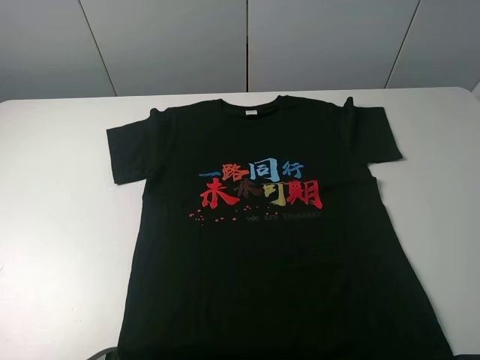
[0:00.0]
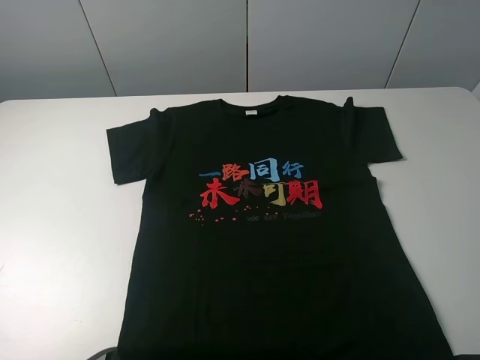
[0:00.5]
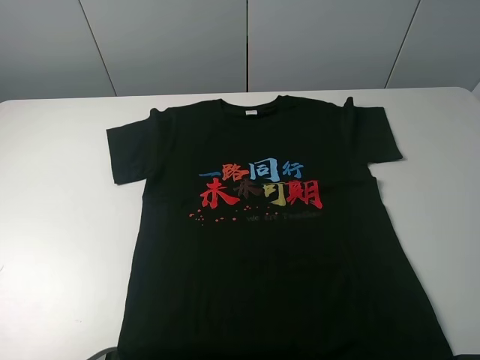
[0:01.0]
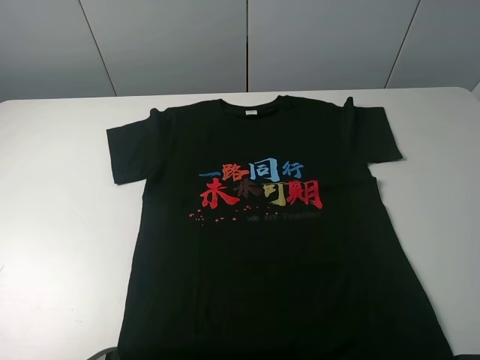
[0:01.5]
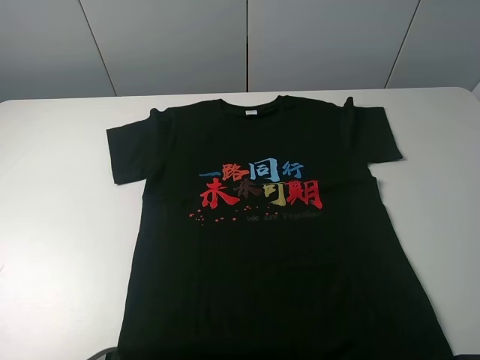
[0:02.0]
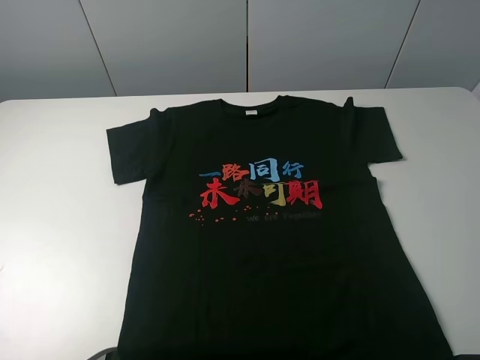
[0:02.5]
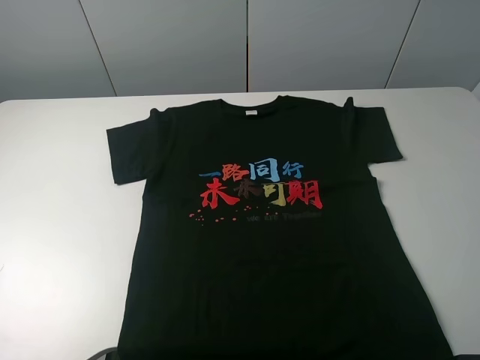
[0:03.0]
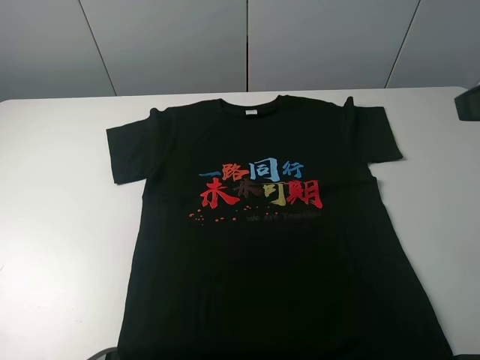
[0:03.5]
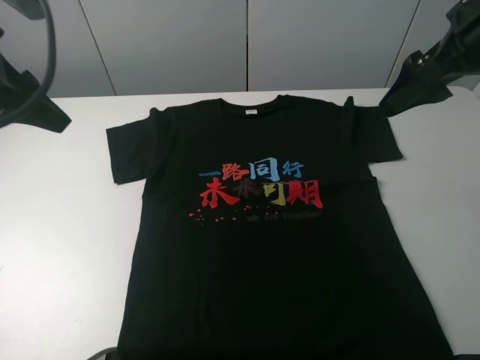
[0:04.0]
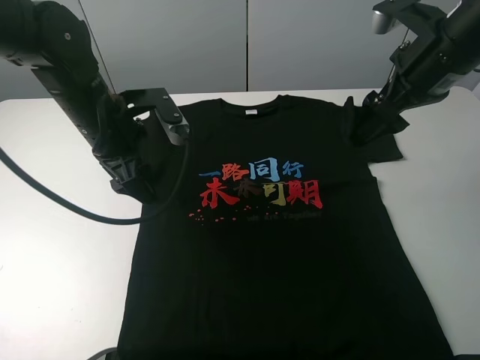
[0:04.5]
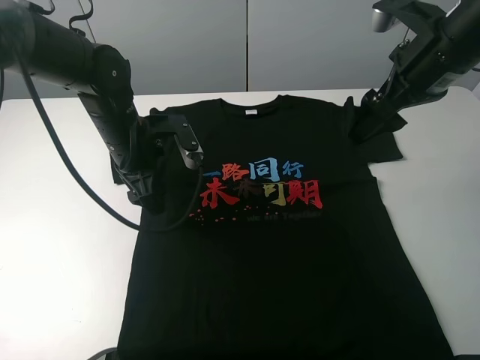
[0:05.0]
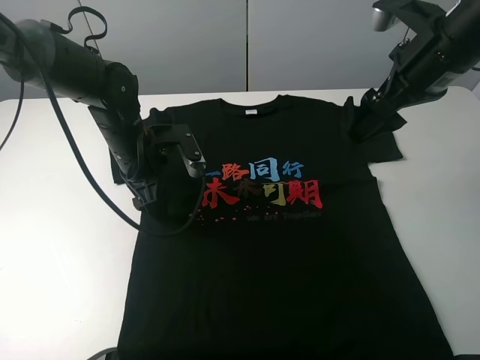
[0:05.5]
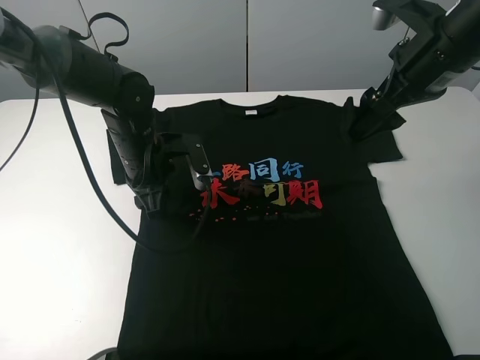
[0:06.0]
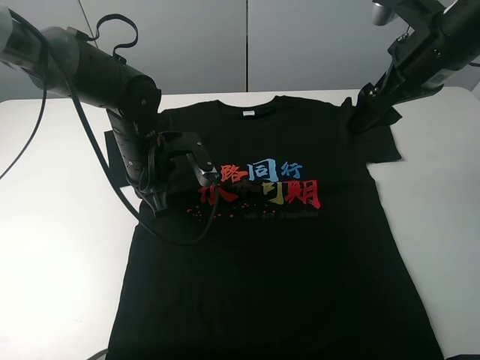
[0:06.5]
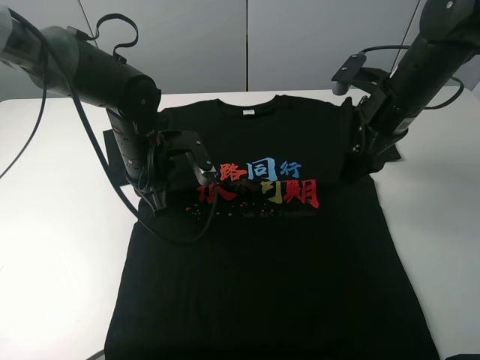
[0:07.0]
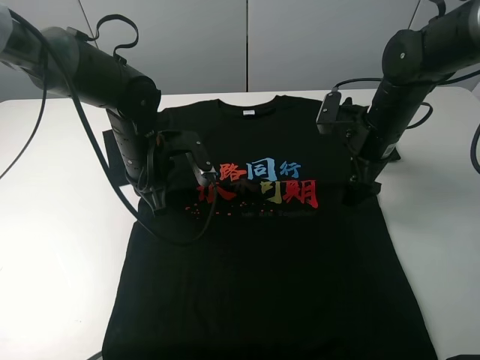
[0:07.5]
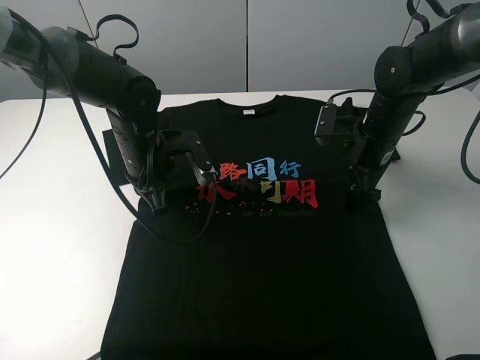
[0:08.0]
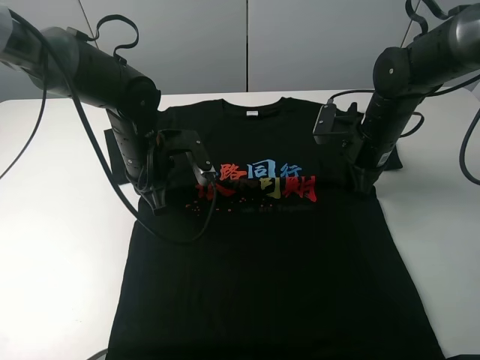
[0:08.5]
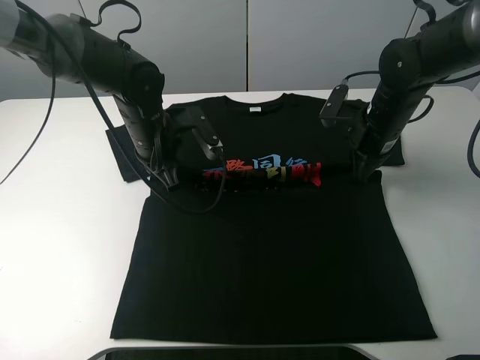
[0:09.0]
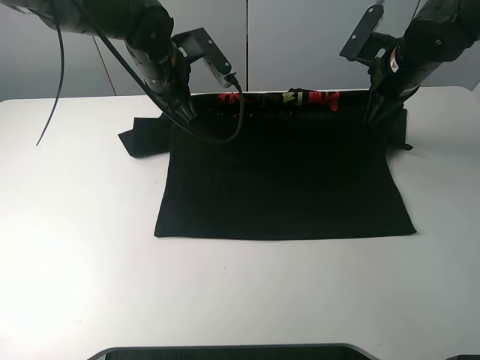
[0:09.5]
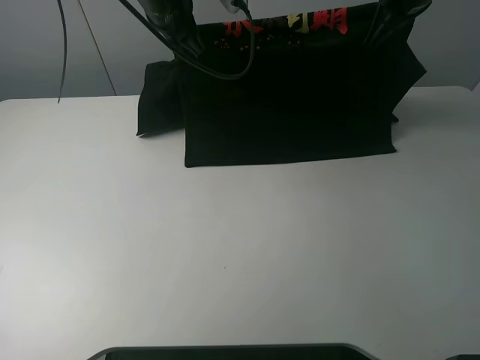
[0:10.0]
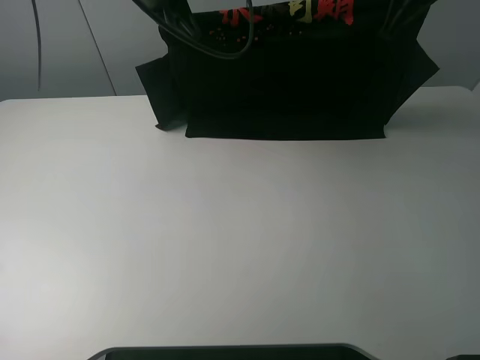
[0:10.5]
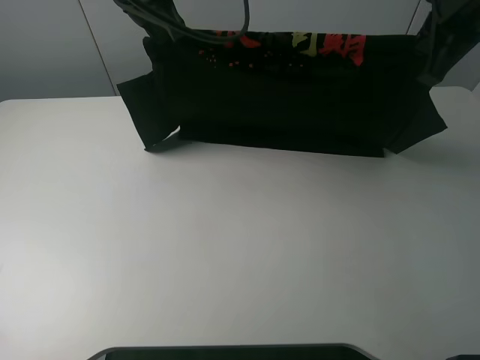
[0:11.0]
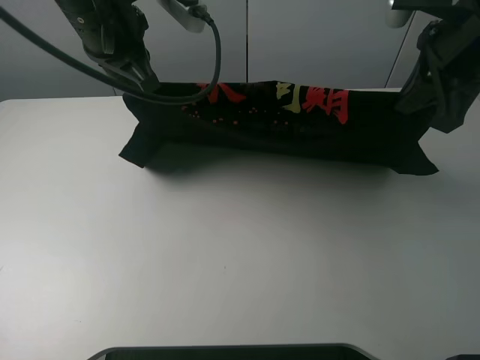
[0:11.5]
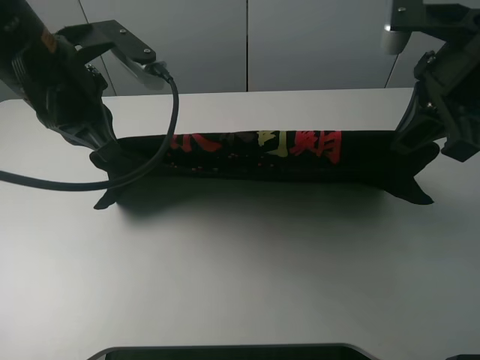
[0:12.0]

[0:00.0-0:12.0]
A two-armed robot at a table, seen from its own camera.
Task of the whole recording: fold the clothes on the table.
Step, 0.0 to 8.5 s: Lift the black T-shirt with the left gripper.
0.0 to 2.0 s: Both grippers stay about where they are.
2.0 to 4.0 s: The two grippers go some 25 cm forward.
4.0 to 6.0 s: The left gripper is displaced downward and to the right by some 25 cm, and closes its fingers.
6.0 to 8.0 s: The right gripper is displaced downward by roughly 15 cm; the left gripper closes its fingers.
8.0 to 10.0 s: The two grippers go roughly 20 cm upward and forward. The right gripper closes its fingers.
10.0 to 12.0 s: The left gripper travels backward and to the left by roughly 20 cm; the right gripper shifts about 20 cm backward.

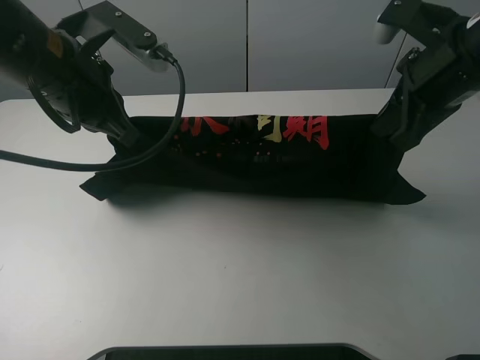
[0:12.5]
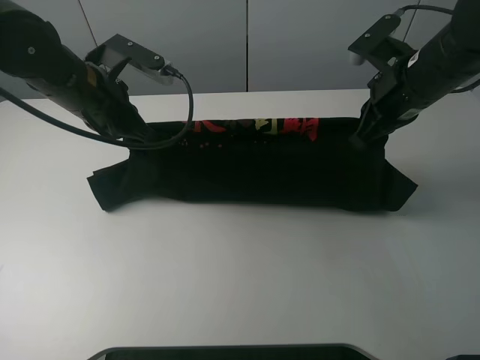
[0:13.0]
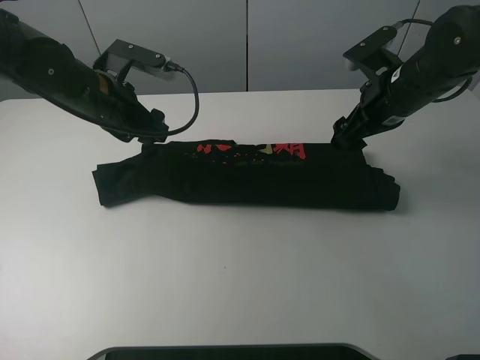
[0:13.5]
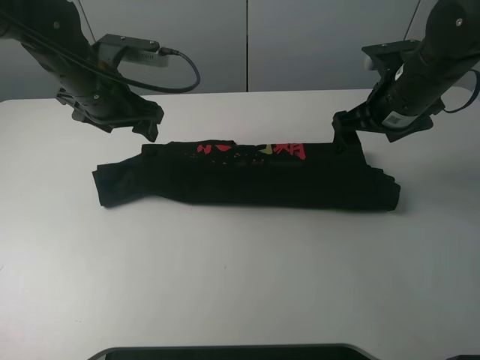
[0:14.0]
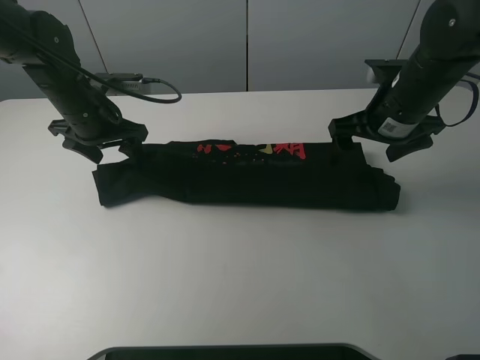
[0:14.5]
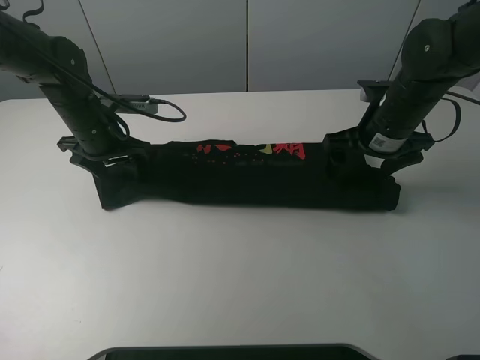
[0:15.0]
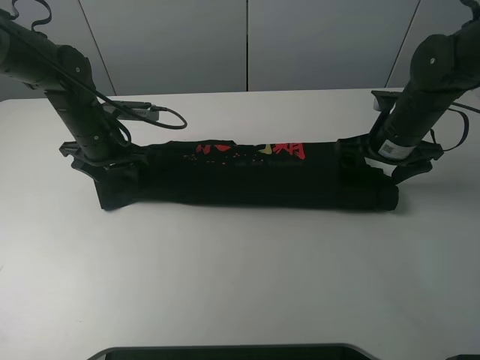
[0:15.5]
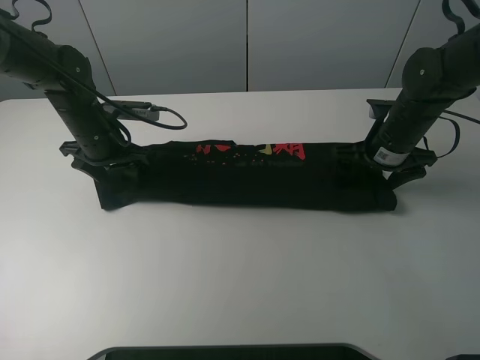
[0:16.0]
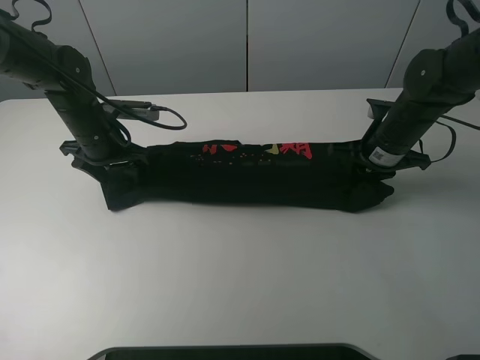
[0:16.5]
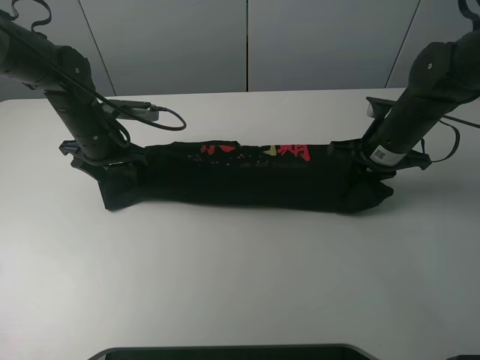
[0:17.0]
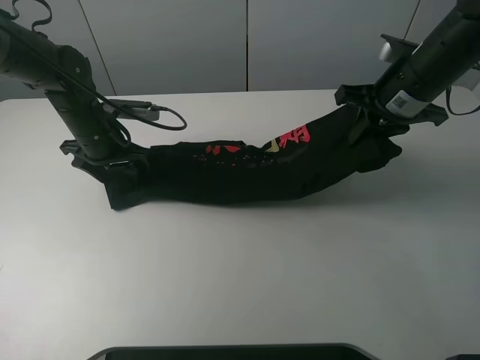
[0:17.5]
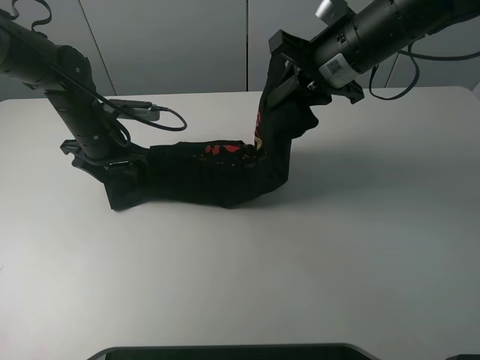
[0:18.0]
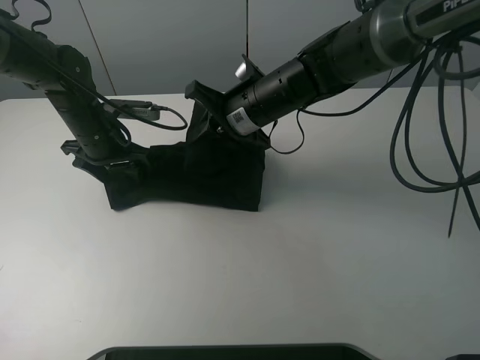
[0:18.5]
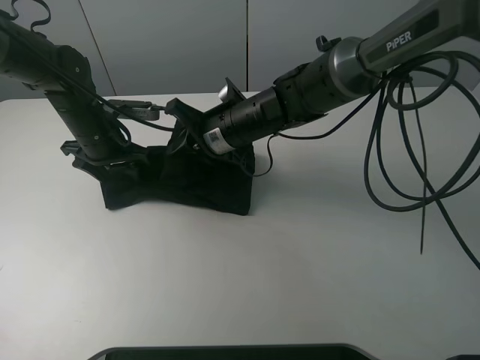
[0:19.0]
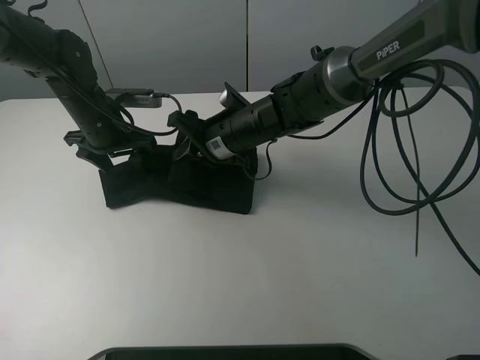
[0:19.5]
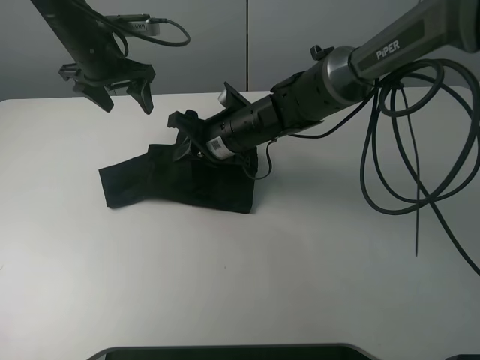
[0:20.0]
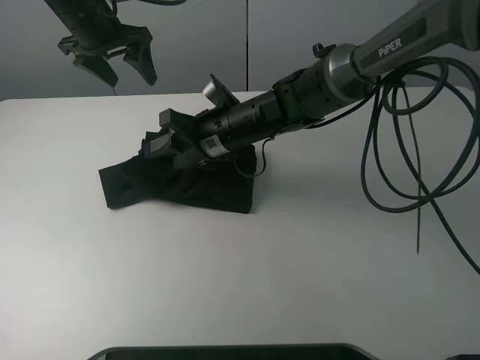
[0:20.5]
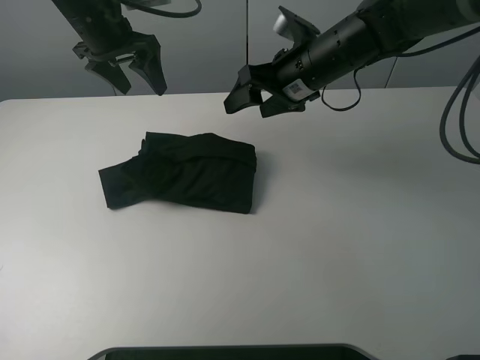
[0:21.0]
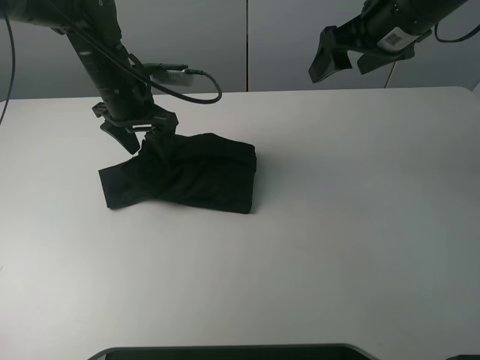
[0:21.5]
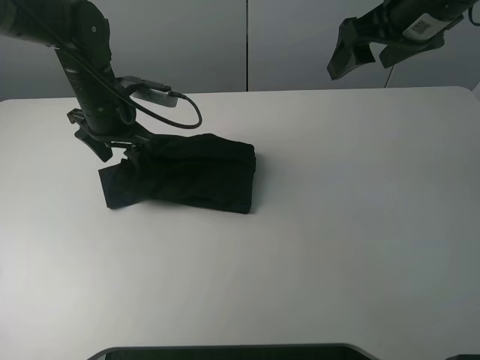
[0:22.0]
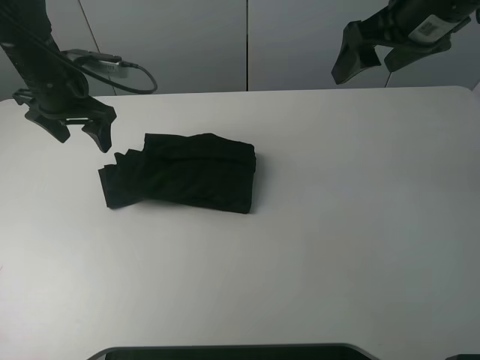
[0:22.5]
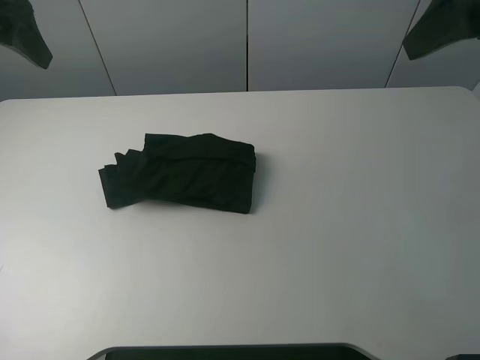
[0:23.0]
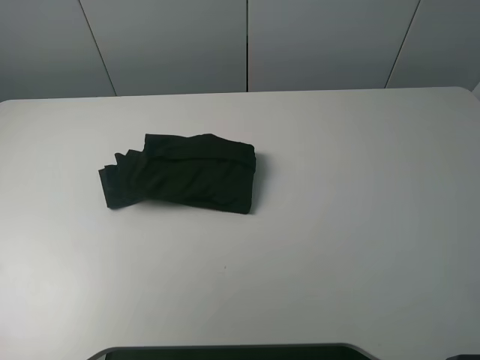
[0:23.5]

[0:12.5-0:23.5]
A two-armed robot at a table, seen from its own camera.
Task of the whole recording: fold the clothes on the table.
Step, 14.0 to 17.0 s: Grasp the black T-shirt with the right gripper.
Step, 17.5 to 20.5 s: Fold the black T-shirt from right to left with right gripper.
12.5 to 14.5 s: Both grippers travel together downward and forward, approximately 15 cm. The right gripper opens; the left gripper opens its fingers.
14.5 to 16.0 s: The right gripper travels downward by about 5 cm.
16.0 to 18.0 s: The right gripper travels upward and to the left by some 15 cm, and closes up.
18.0 to 20.0 s: The right gripper travels downward and to the left by approximately 20 cm, while the left gripper goes some 15 cm upward and forward.
20.0 to 21.5 s: The right gripper travels to the right and upward by some 25 cm, and opens its fingers, while the left gripper shifts approximately 10 cm backward and downward.
21.5 to 23.5 s: The right gripper moves backward, some 25 cm. The left gripper heads backward, to the left and upward, covering some 30 cm.

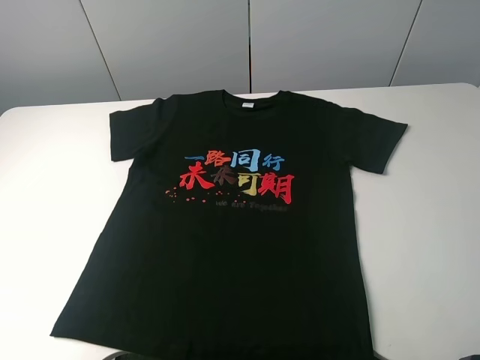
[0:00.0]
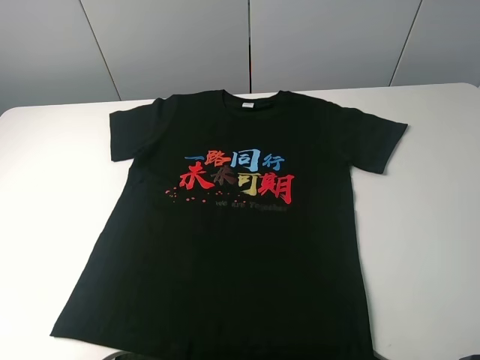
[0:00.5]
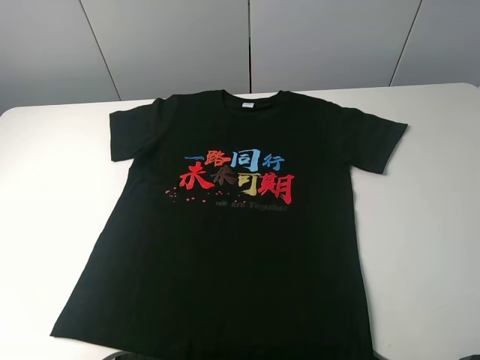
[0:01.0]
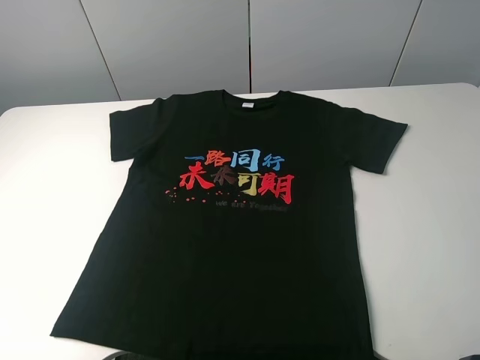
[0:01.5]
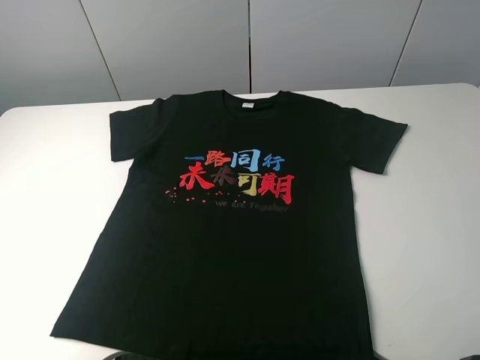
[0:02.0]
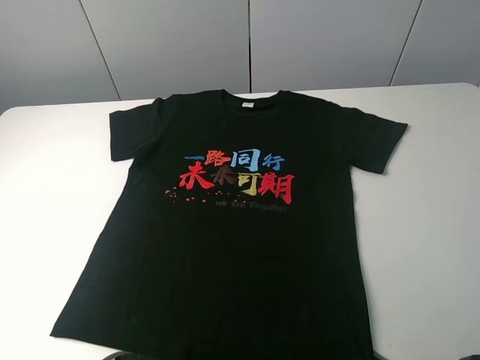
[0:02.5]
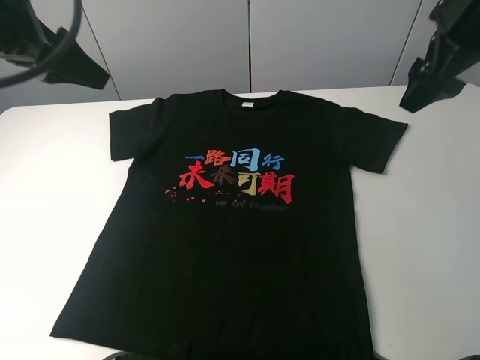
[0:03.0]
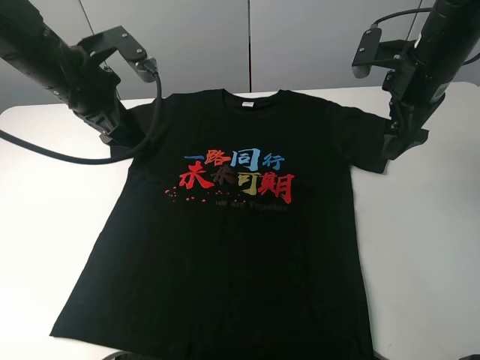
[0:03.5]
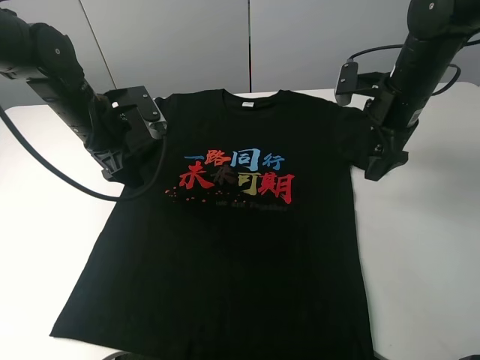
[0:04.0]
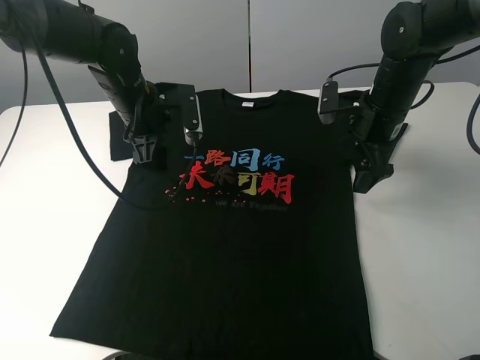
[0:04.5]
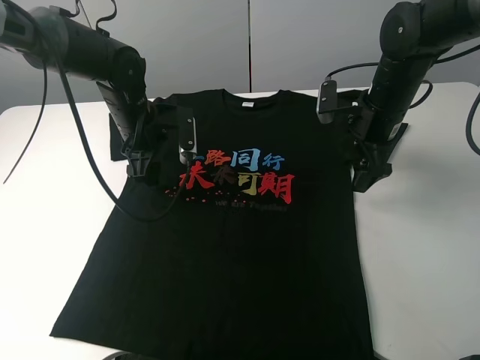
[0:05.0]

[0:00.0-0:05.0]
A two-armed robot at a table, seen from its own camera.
Task of the whole recording: fold the clothes on the table.
2.5 to 5.0 s: The right gripper is displaced downward and forward by about 35 cm. Meanwhile the left gripper moves downward, forward and to the right, roughly 35 cm.
